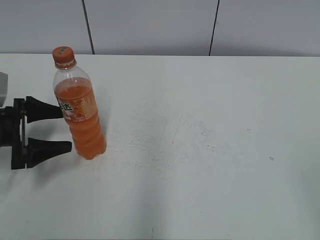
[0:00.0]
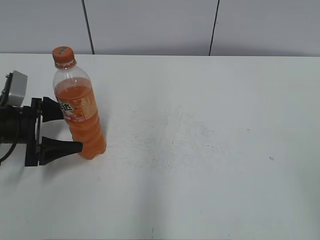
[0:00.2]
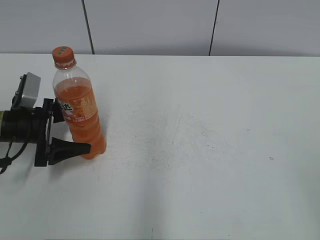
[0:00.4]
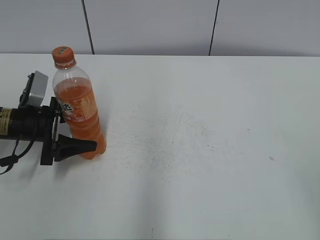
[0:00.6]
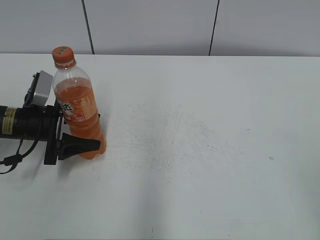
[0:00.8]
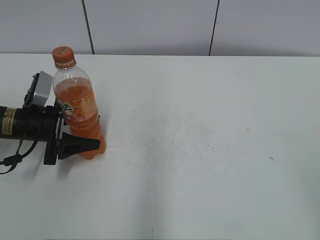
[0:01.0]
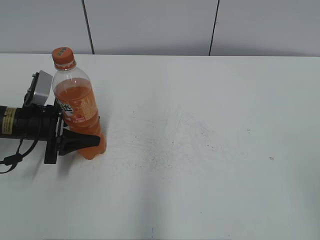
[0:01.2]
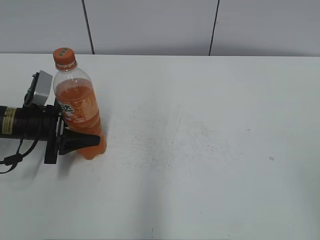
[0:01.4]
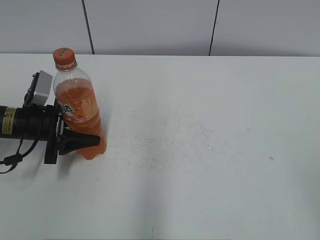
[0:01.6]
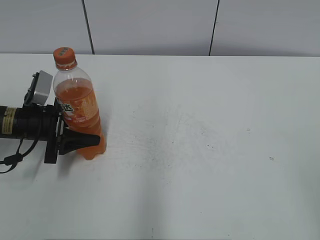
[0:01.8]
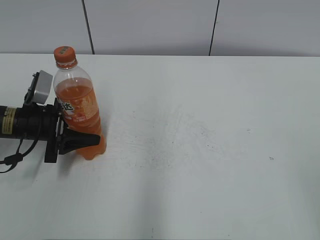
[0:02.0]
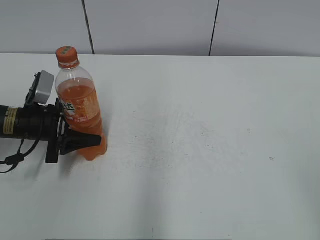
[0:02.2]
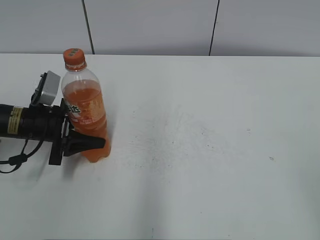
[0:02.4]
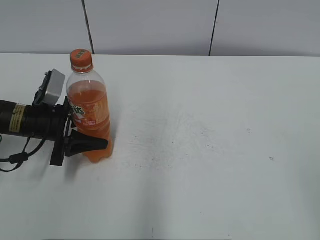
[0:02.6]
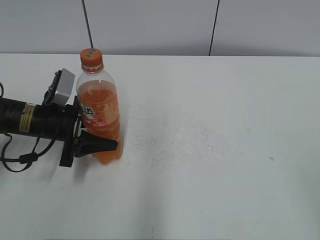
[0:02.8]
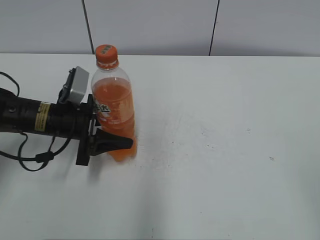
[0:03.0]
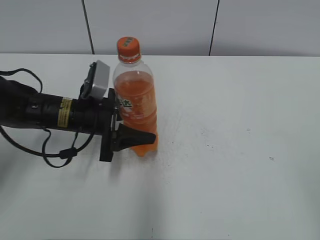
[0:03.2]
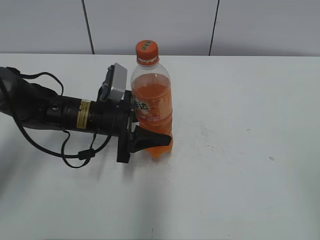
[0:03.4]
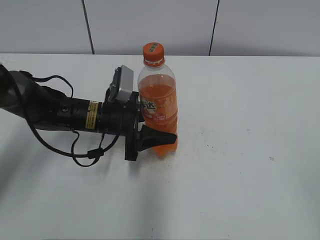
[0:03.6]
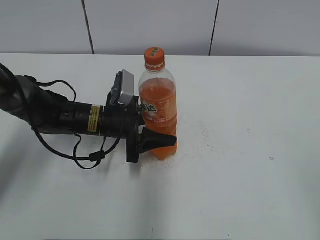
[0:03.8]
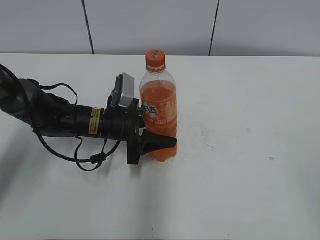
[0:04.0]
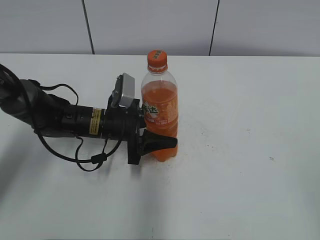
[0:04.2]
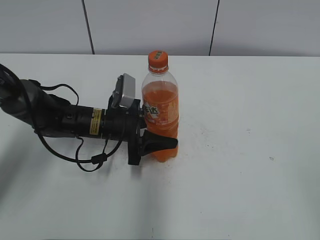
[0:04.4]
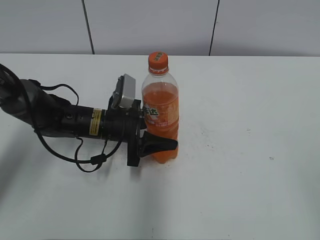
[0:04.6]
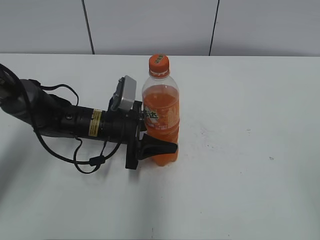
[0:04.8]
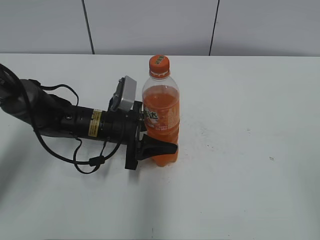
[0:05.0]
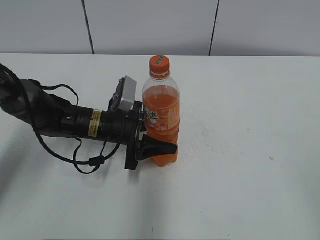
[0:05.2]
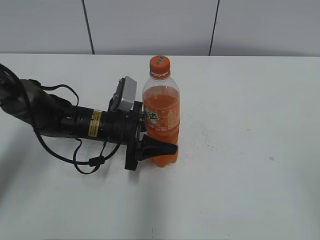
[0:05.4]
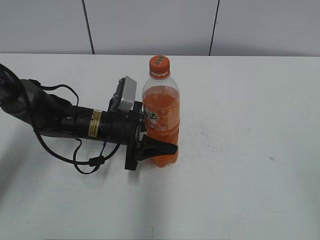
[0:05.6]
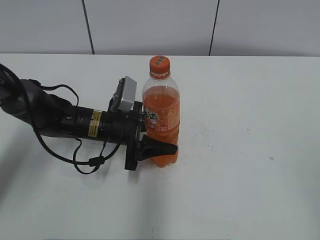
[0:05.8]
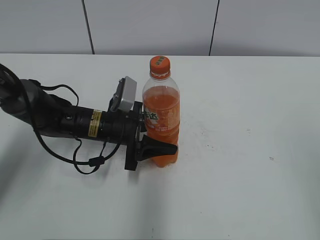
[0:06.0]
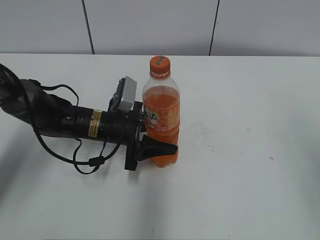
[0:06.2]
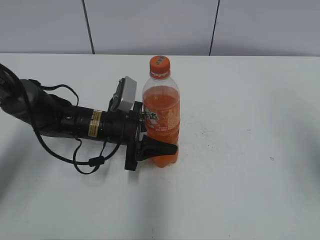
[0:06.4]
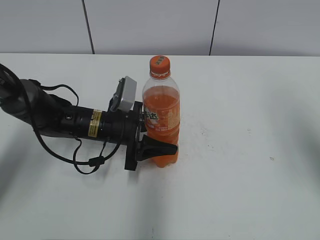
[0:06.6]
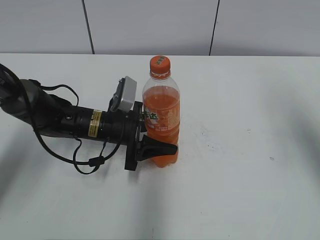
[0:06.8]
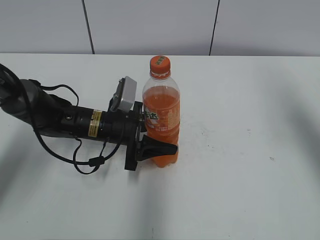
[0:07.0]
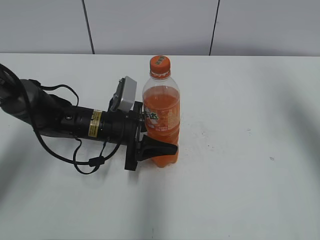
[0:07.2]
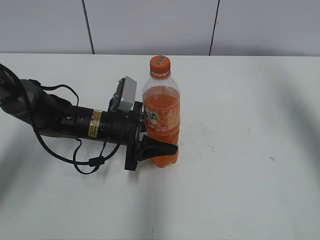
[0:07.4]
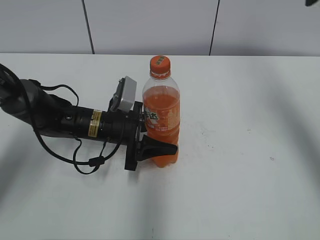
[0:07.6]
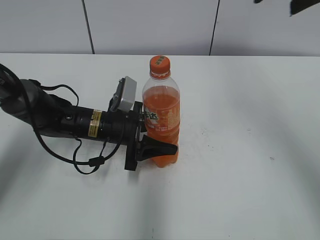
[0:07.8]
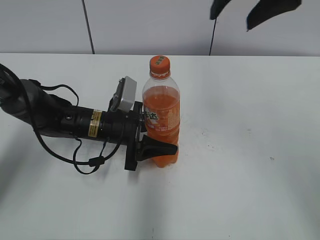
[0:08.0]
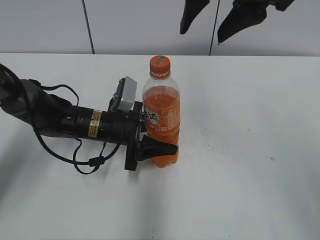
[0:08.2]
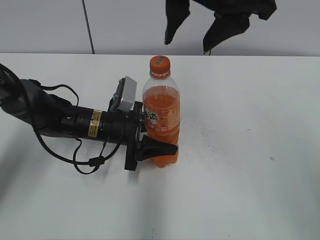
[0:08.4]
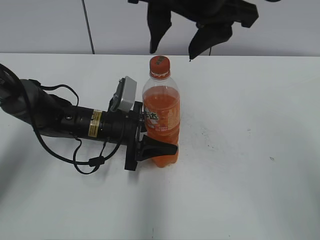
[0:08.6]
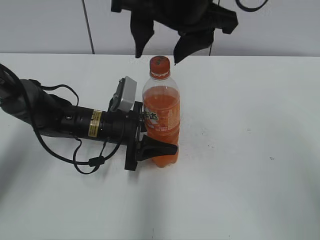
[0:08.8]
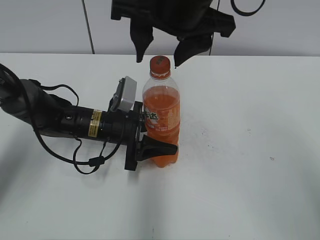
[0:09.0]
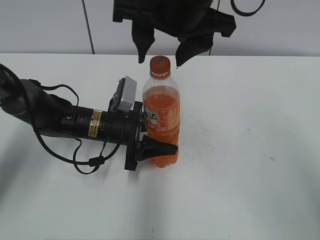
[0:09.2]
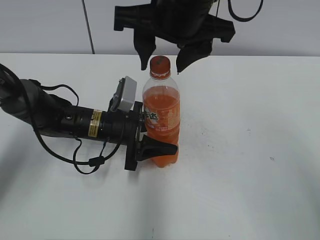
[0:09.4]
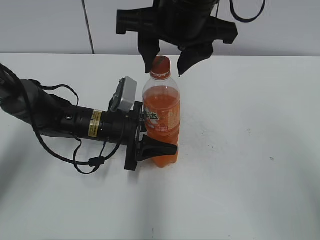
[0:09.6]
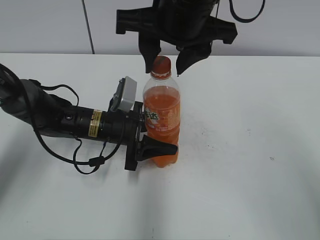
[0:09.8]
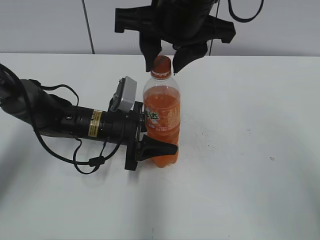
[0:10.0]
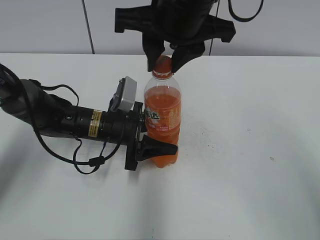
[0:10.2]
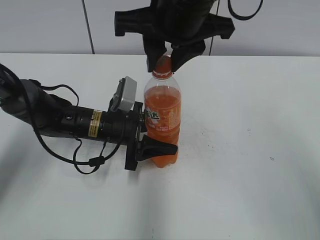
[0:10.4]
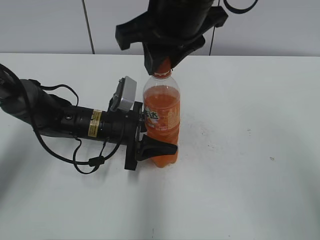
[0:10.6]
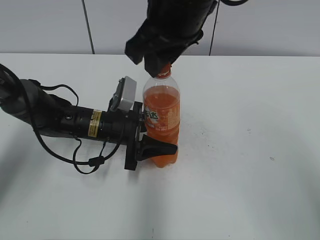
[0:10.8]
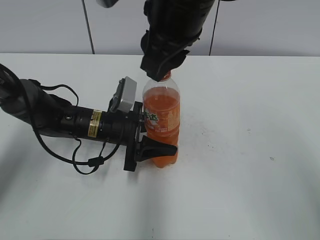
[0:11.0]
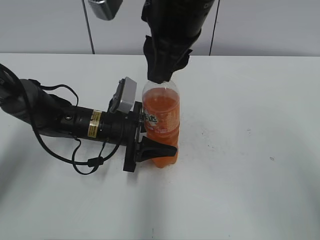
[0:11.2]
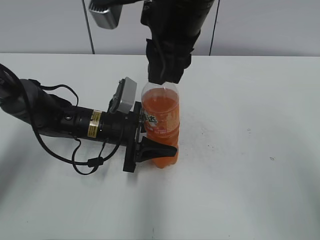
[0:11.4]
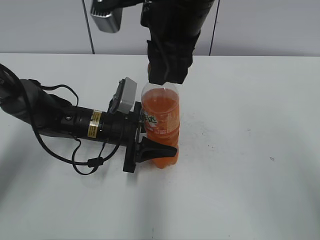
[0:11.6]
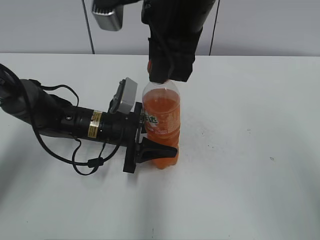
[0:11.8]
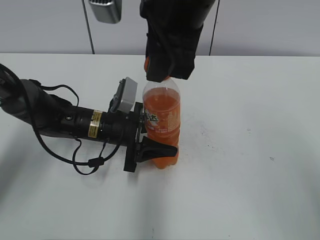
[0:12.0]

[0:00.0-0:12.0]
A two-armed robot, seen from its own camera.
Step, 0:01.6 to 0:05.2: Move the Mirinda from left to right.
0:00.0 to 0:01.6: The left gripper moves roughly 5 cm, and closes its fingers.
0:01.6 to 0:03.0: The left gripper heads to the right, covering roughly 5 cm.
0:03.0 to 0:04.4: The left gripper heads to the right, covering about 10 cm.
0:04.4 to 0:06.0: The right gripper changes place by approximately 5 cm.
0:06.0 to 0:07.6: The right gripper is displaced forward by some 25 cm.
0:07.6 to 0:09.0: The right gripper shifts about 25 cm to the left.
0:09.0 to 0:10.4: The right gripper closes.

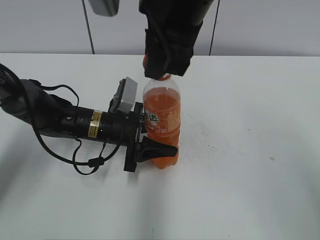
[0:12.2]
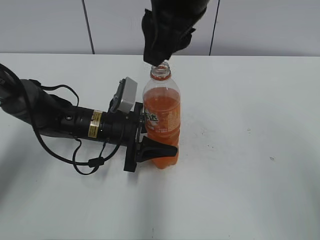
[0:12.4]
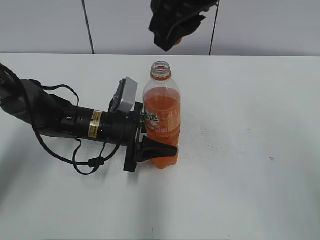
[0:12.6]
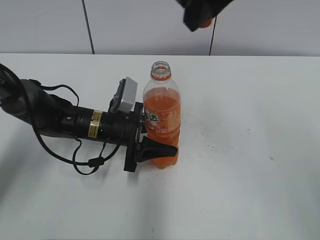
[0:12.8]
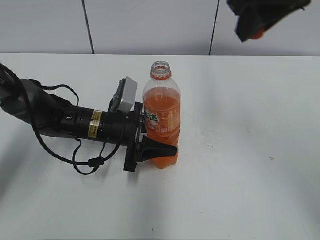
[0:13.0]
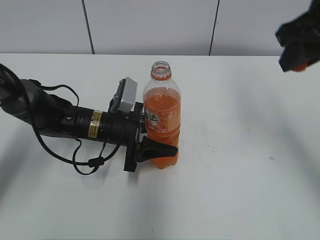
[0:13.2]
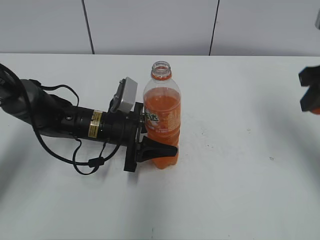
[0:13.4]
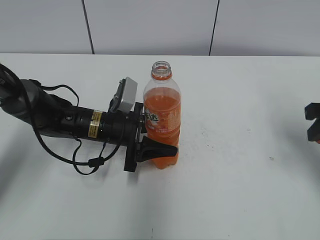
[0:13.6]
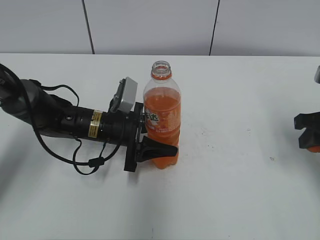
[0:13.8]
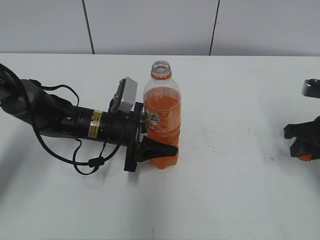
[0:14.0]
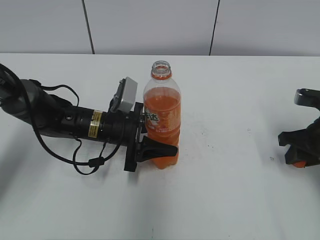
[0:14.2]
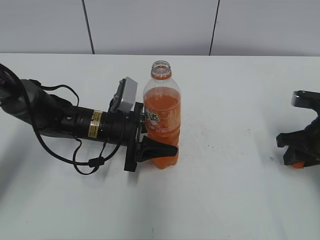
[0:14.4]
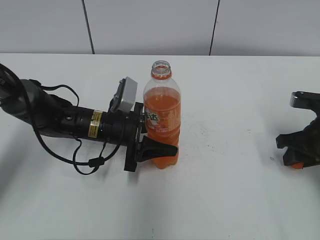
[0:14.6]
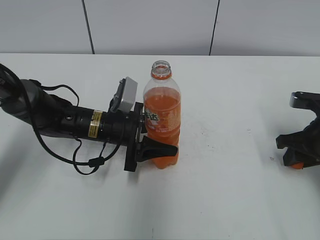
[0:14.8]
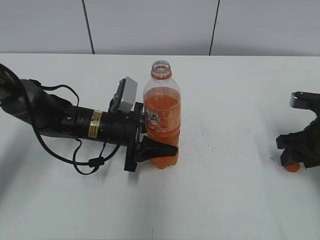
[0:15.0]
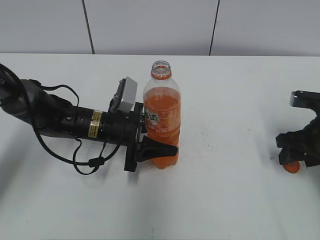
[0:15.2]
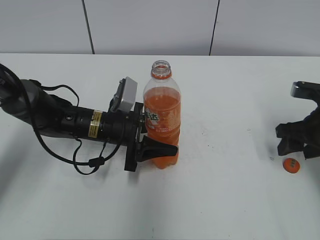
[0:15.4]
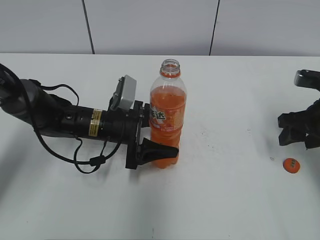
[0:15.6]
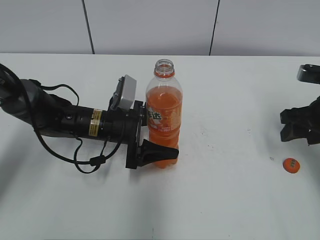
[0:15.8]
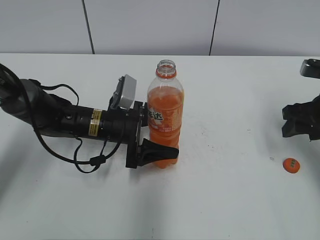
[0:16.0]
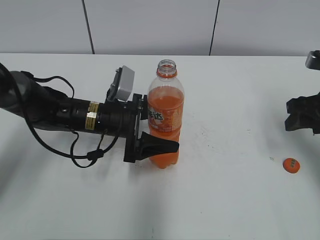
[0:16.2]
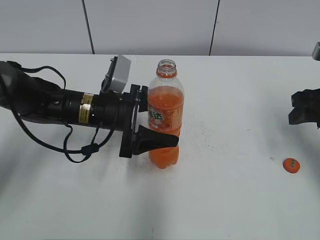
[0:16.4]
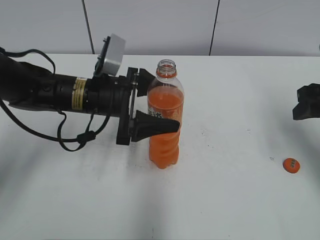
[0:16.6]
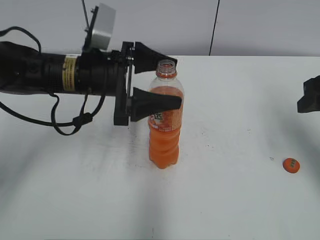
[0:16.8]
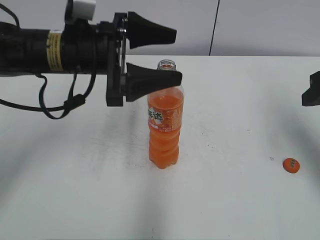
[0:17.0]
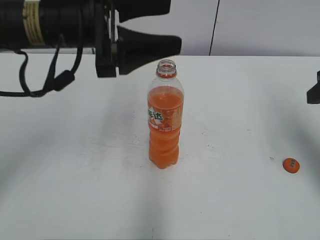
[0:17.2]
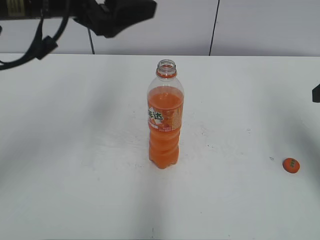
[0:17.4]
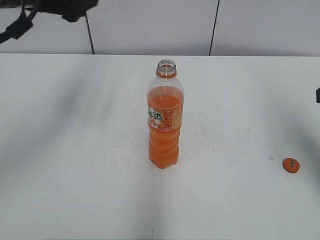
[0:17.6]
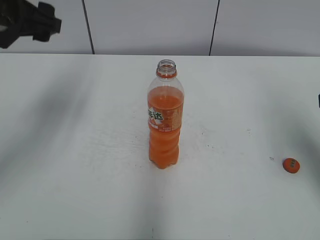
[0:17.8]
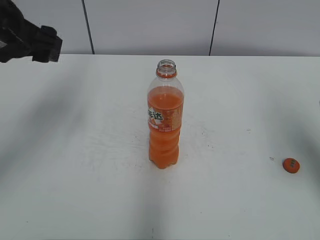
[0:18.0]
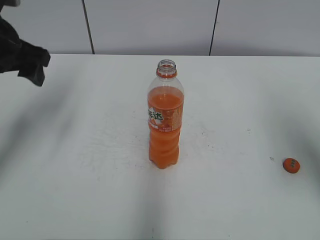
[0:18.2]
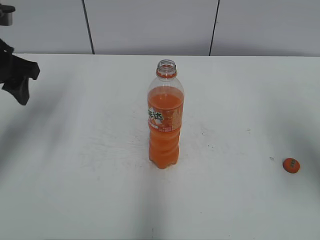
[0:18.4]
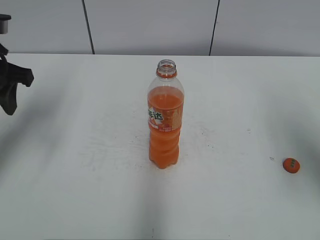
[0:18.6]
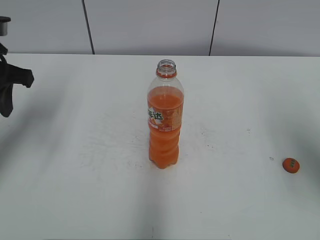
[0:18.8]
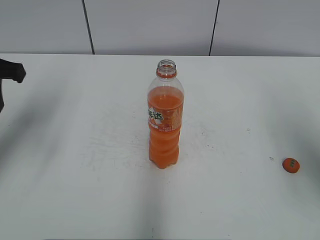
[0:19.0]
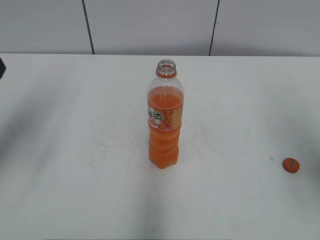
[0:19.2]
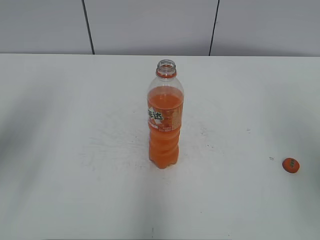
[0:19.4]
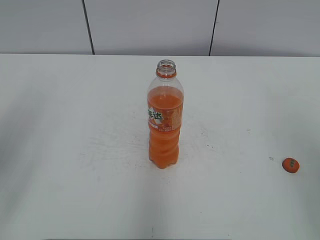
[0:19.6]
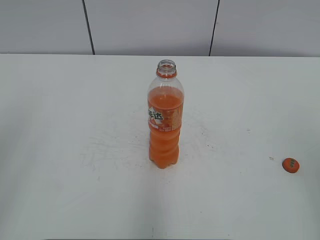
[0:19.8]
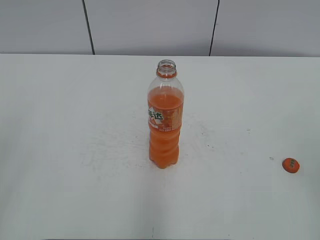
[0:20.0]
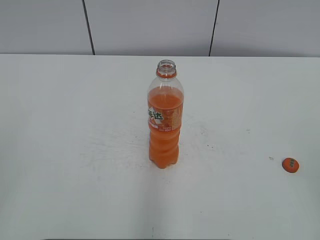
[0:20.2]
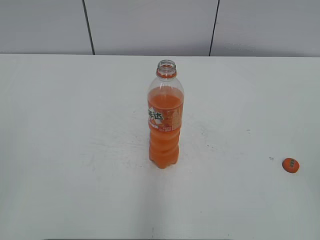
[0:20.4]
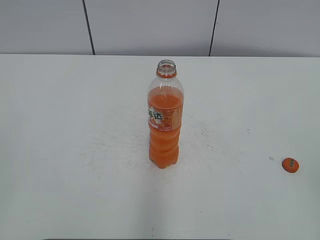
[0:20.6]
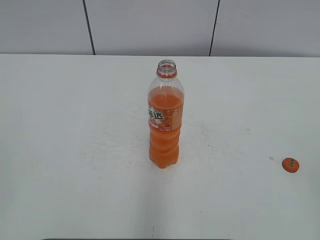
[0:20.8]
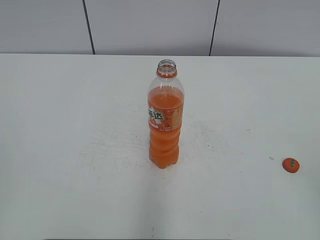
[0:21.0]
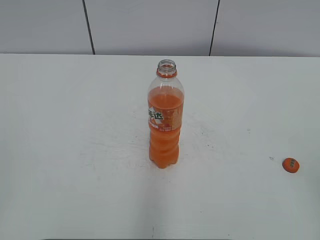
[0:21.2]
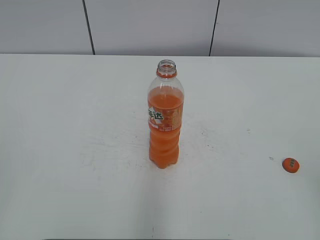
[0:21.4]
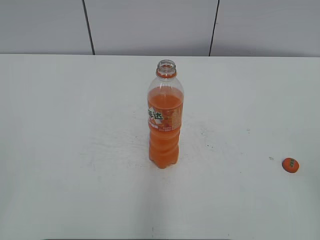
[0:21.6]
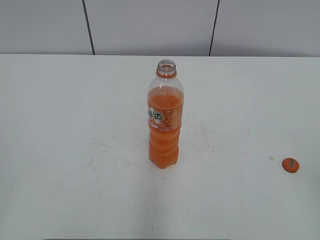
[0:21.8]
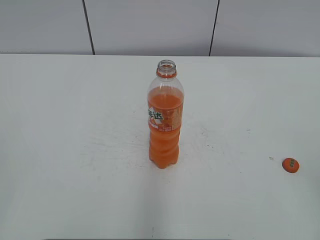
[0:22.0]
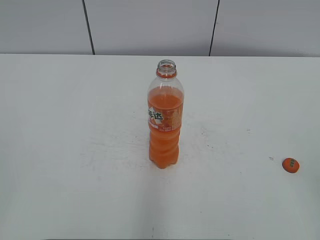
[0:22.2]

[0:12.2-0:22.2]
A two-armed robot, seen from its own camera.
Step, 0:12.4 to 0:15.0: Place the bottle cap on the right.
0:12.2 to 0:13.6: The right gripper heads to the right and downward, covering approximately 30 cm.
0:13.6 to 0:15.0: The right gripper is displaced downward by roughly 10 cm, and opens its fingers.
0:15.0 to 0:16.4: The left gripper opens up; the right gripper heads upward, covering some 10 cm.
0:16.4 to 0:18.0: The right gripper is displaced upward and backward by roughly 10 cm. The left gripper goes some 20 cm upward and to the left.
0:18.0 to 0:19.4: The left gripper shifts approximately 10 cm backward, and closes.
0:19.4 to 0:20.8: Both grippers travel together backward, approximately 20 cm.
